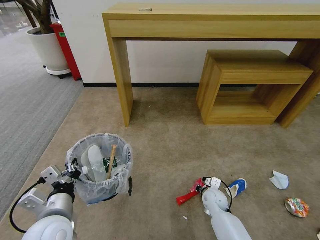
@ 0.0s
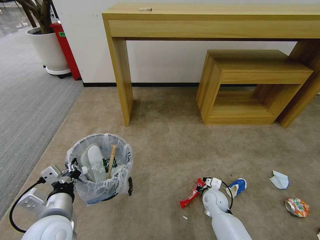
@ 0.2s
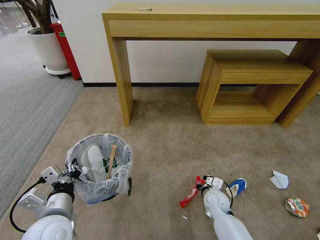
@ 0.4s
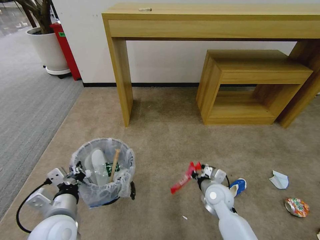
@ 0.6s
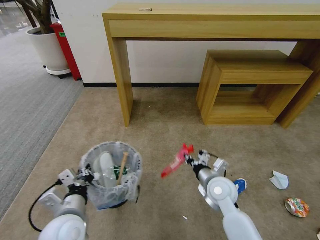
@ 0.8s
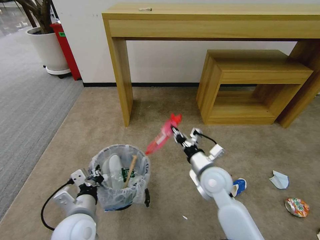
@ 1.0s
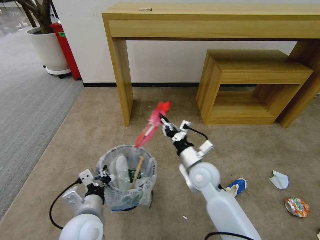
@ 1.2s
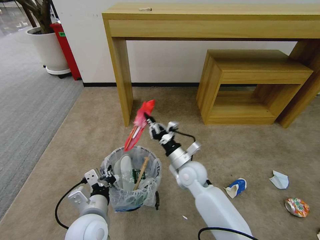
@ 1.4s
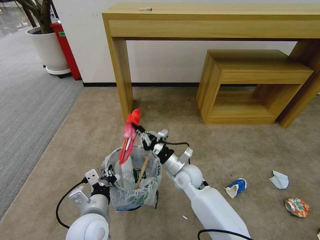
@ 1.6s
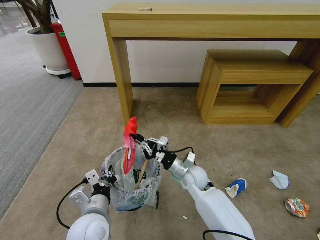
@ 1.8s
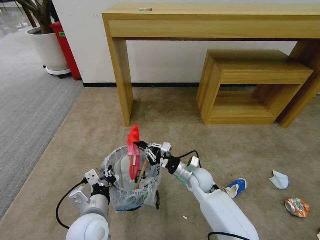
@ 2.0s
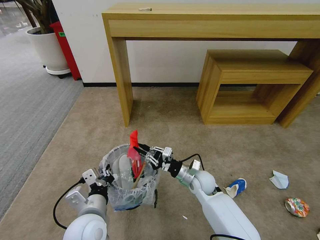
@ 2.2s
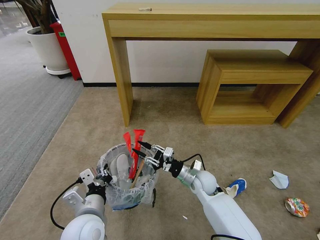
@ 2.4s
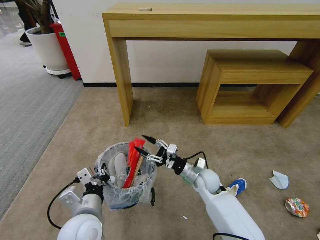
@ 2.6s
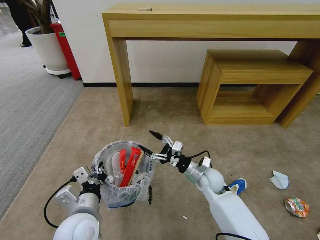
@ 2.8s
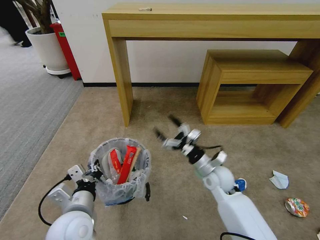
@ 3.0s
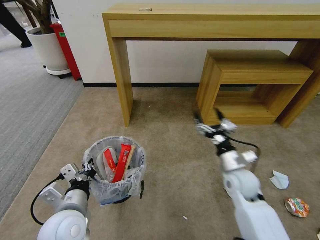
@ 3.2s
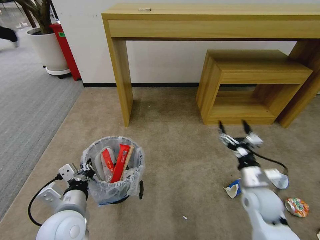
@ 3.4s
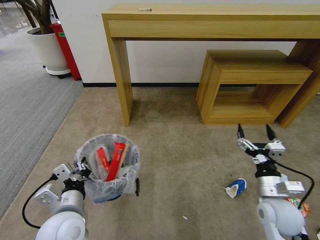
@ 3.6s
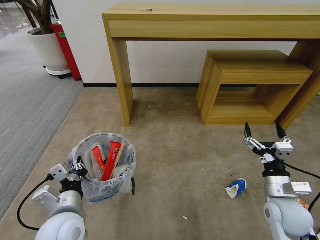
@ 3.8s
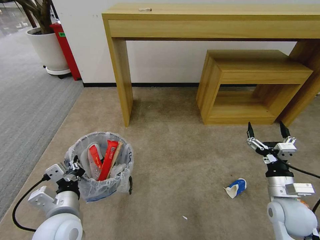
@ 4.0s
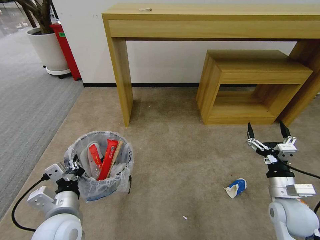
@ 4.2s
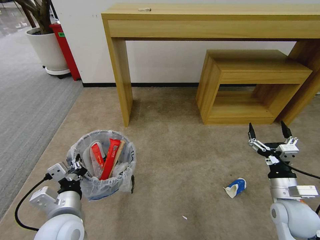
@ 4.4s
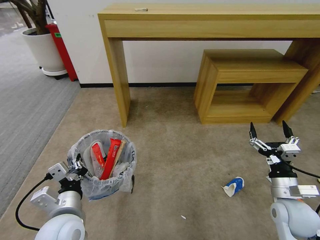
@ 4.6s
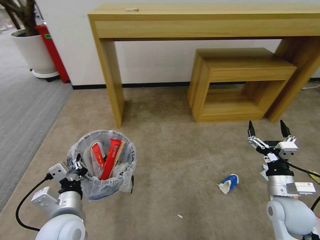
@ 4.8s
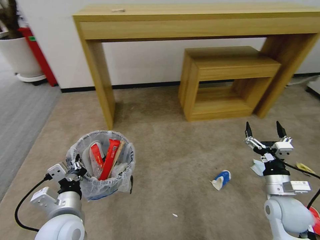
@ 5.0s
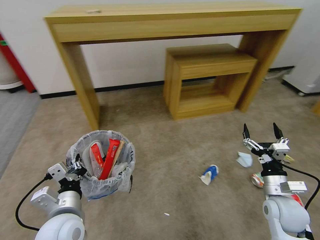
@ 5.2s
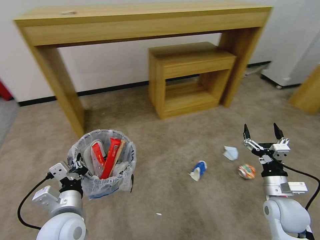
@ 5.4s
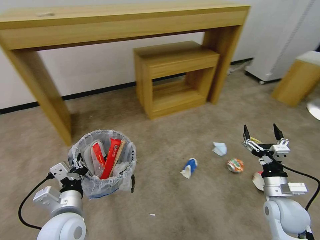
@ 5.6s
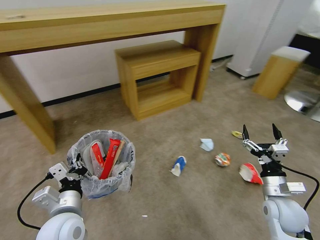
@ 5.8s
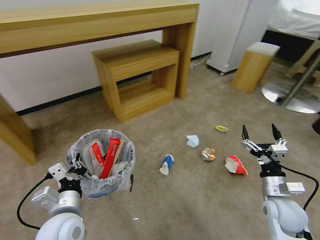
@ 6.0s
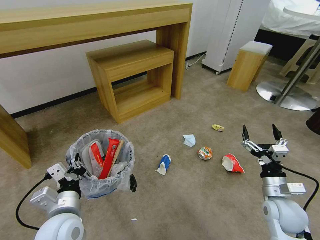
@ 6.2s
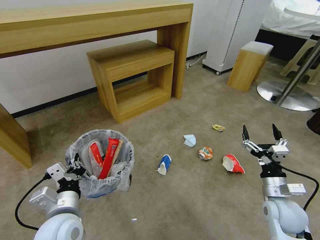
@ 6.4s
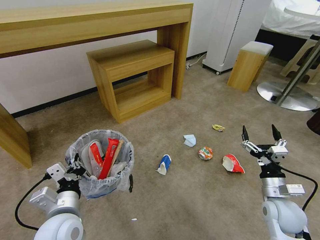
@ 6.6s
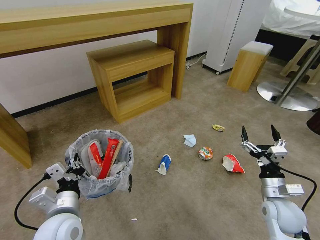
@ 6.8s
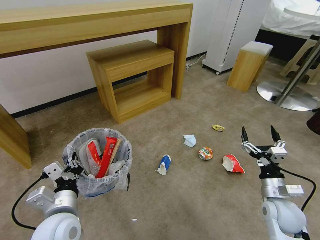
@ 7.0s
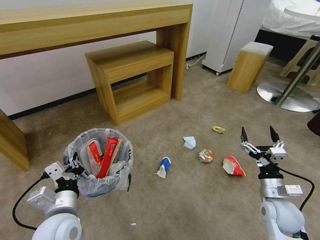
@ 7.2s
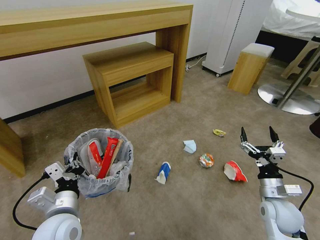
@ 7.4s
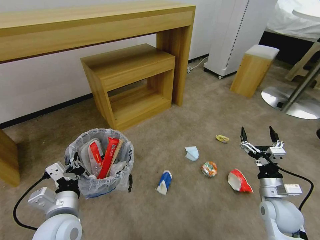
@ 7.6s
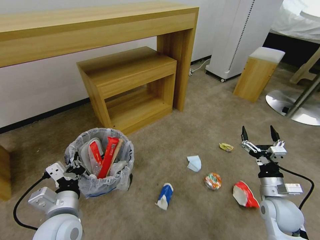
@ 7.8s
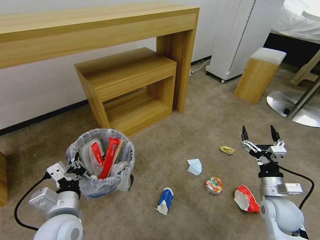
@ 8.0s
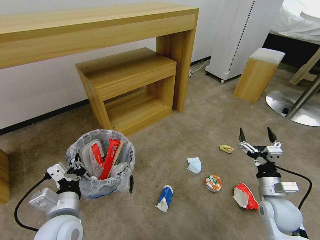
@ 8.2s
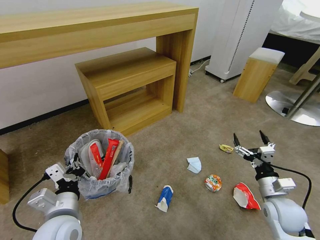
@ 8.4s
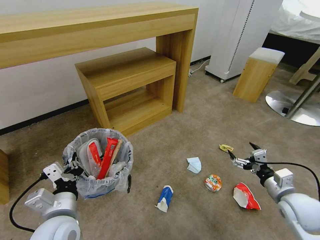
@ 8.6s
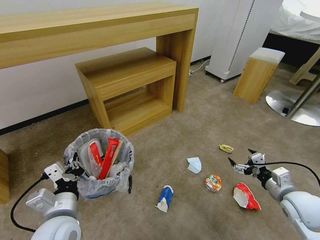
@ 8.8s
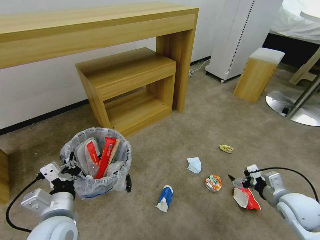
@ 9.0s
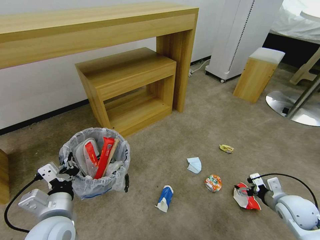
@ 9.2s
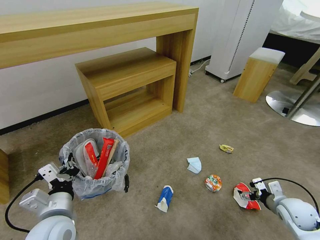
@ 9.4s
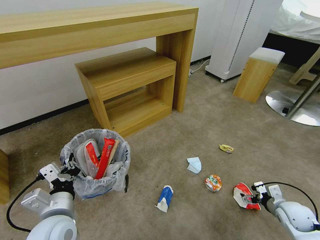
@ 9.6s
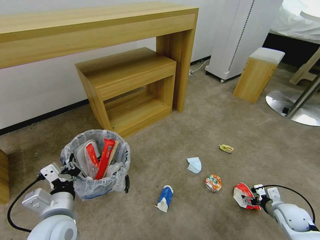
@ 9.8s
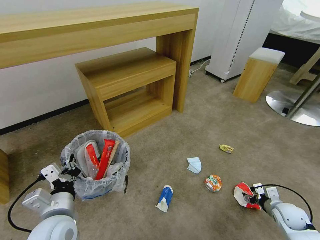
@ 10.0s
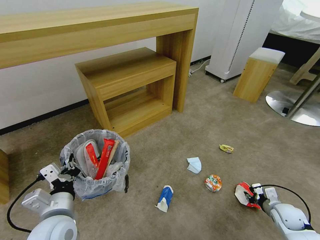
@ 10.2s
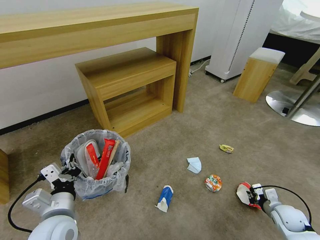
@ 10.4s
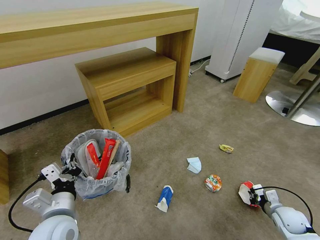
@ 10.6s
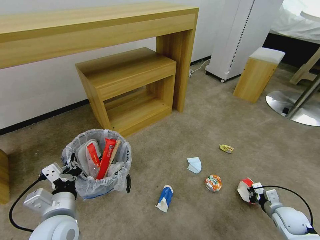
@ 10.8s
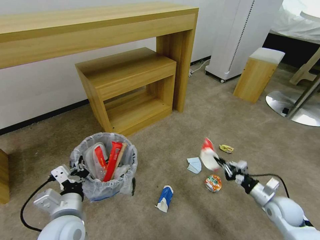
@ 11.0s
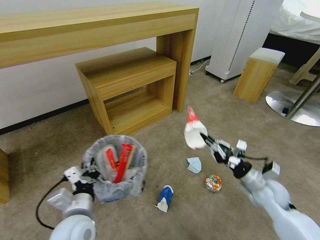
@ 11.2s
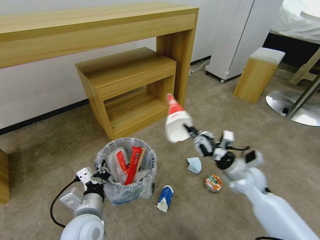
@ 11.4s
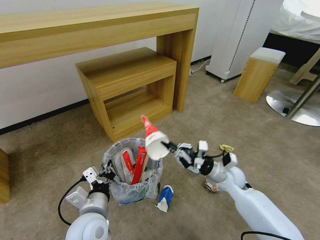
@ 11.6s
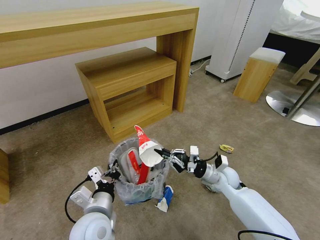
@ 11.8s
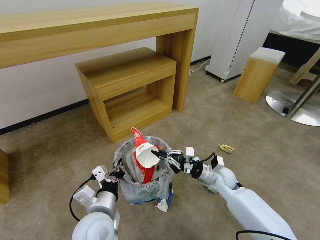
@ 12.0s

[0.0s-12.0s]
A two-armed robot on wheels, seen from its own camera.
Task of the whole recording: Pick up the trash bin and place the garbage on the floor into it.
0.0s to 1.6s: The left gripper shifts roughly 5 cm to the right, while the right gripper goes roughly 20 cm upward and to the left.
1.6s to 3.0s: The right gripper is displaced to the right by some 10 cm, and opens its fingers.
3.0s to 4.4s: The right gripper goes some 20 cm to the right and backward.
7.6s to 9.0s: The right gripper changes place by some 5 cm.
9.0s to 10.4s: The right gripper travels downward and to the right by some 15 cm, and closes.
10.4s to 12.0s: The left gripper goes approximately 10 cm to the right. The right gripper moves to the left and forward, approximately 25 cm.

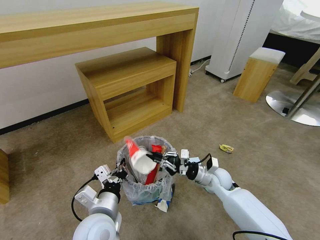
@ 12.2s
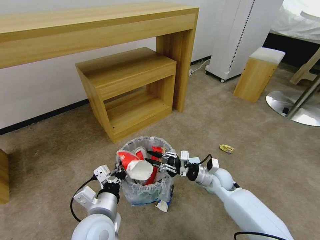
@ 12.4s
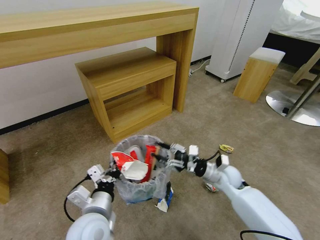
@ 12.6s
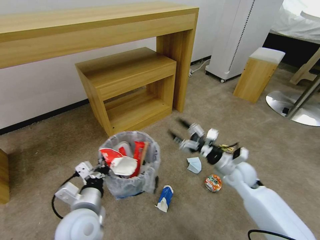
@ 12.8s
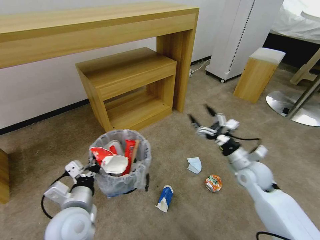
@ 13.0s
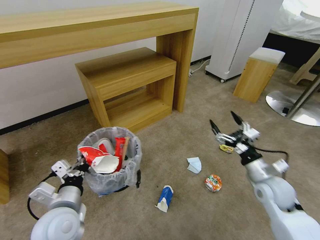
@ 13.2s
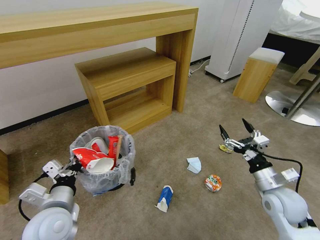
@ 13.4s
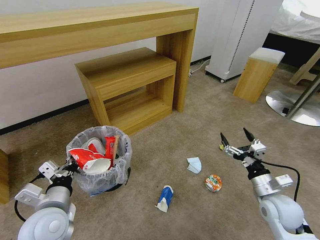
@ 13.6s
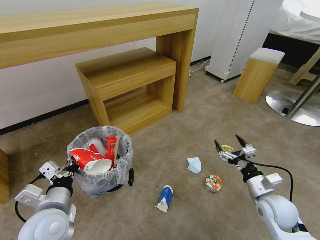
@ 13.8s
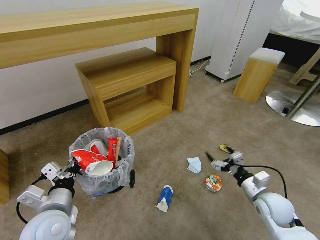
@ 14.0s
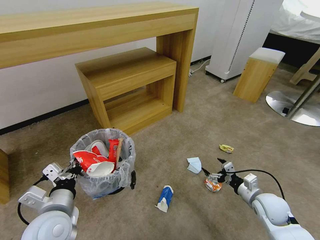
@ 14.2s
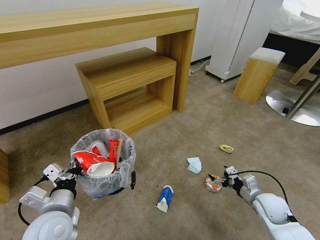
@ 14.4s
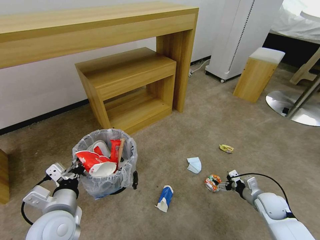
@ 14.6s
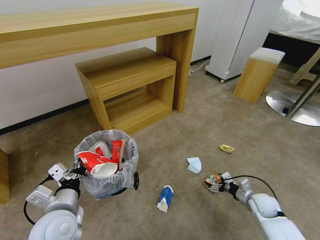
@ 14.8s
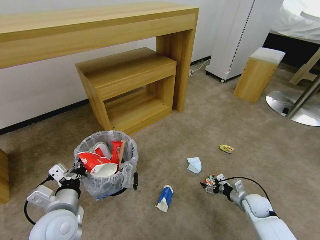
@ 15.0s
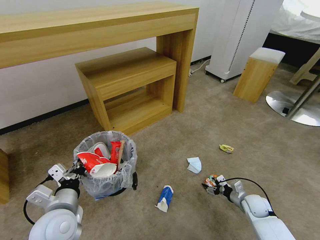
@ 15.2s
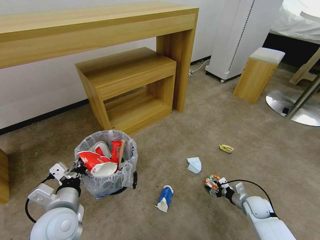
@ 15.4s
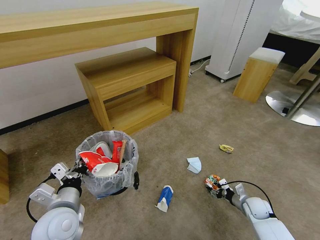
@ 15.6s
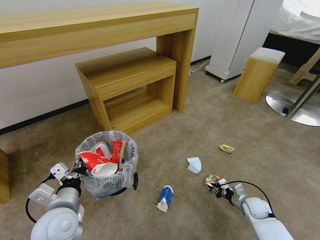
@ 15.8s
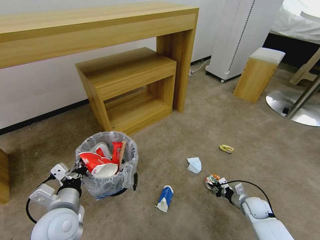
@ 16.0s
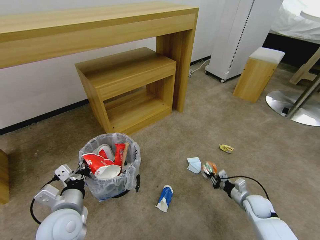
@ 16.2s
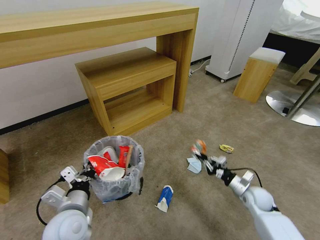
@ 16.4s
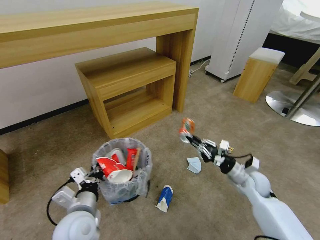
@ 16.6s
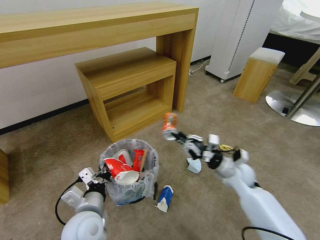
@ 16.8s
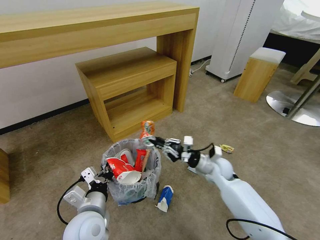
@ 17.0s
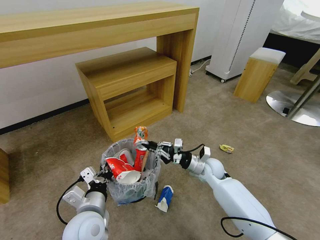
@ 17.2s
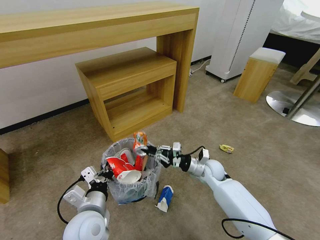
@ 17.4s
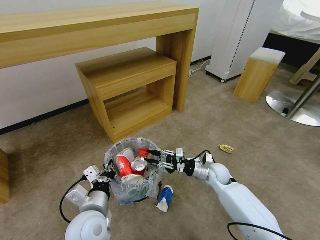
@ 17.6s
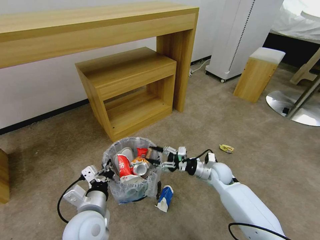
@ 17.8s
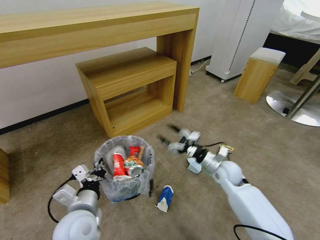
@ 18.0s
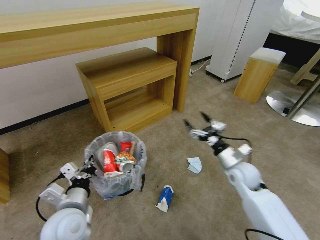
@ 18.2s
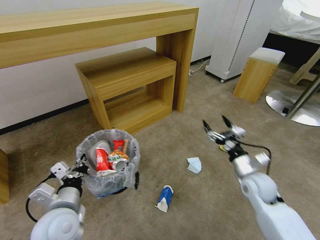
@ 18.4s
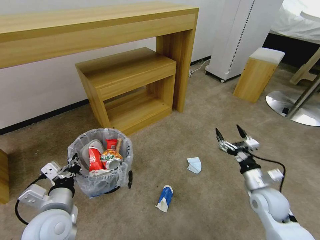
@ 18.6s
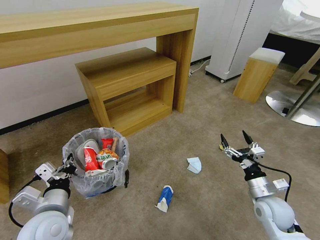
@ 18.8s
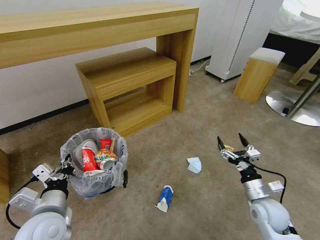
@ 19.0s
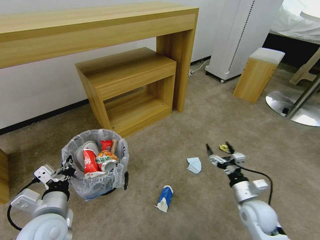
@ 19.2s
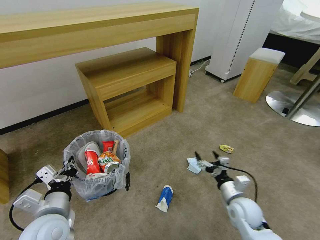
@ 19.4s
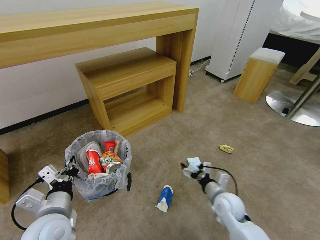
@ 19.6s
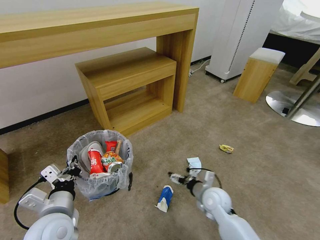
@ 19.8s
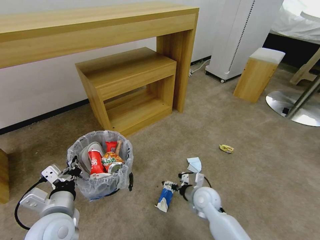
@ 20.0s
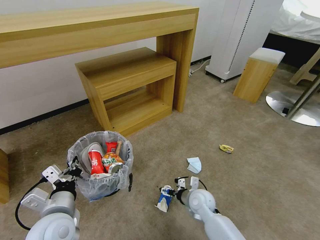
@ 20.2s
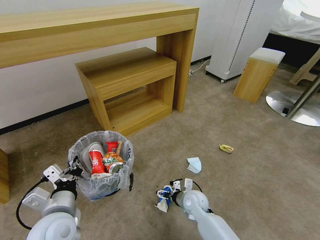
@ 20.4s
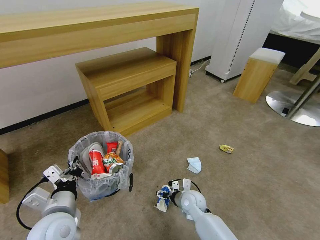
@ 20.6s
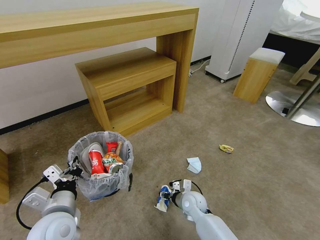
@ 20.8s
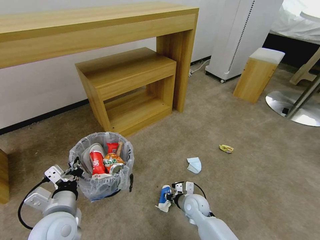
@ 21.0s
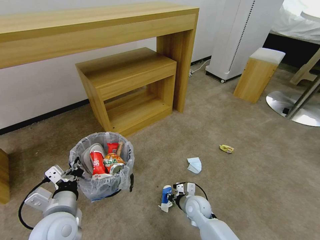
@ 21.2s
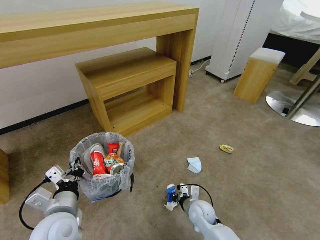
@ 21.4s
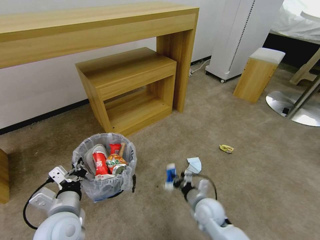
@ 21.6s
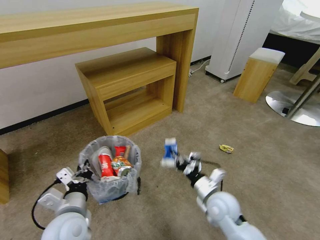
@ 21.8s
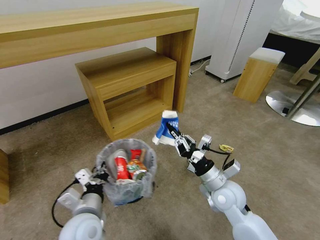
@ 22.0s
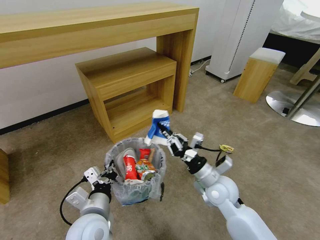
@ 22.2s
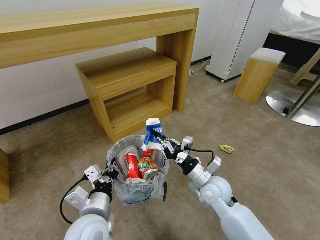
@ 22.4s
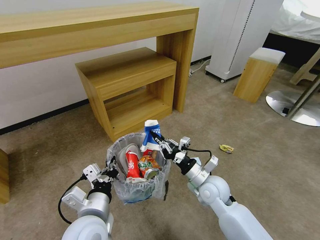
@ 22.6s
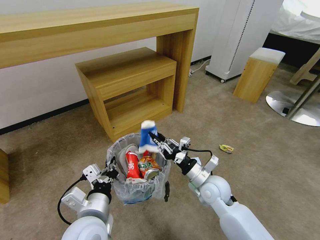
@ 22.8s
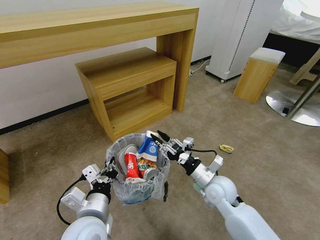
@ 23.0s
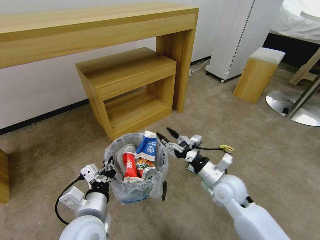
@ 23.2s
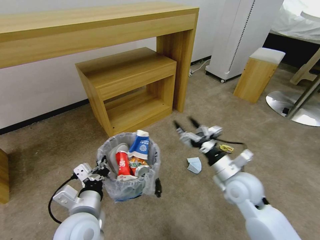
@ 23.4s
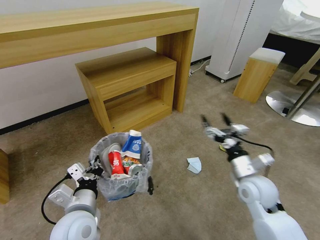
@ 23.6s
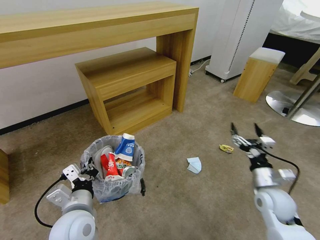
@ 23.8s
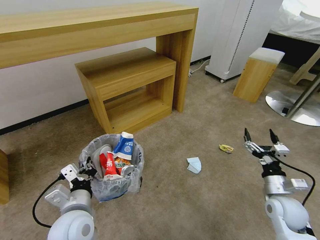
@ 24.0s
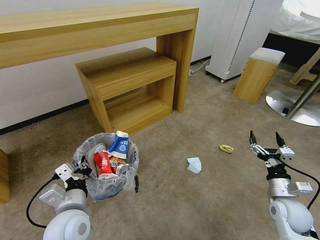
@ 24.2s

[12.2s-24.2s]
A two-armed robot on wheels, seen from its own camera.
Task of the whole recording: Pick up the trash bin and place the garbage on the floor into it.
12.2s to 13.8s: The right gripper goes approximately 20 cm to the right and backward, and opens up. Meanwhile the left gripper heads to the left, covering about 10 cm.
13.8s to 15.2s: The right gripper heads downward, covering approximately 15 cm.
15.2s to 16.6s: The right gripper goes about 15 cm upward, and closes.
16.6s to 18.2s: The right gripper goes some 5 cm to the left, and opens up.
18.2s to 19.8s: The right gripper goes approximately 15 cm to the left, downward and backward.
19.8s to 21.2s: The right gripper heads downward and to the left, covering some 10 cm, and closes.
21.2s to 22.6s: The left gripper goes some 10 cm to the right; the right gripper goes some 15 cm upward.
22.6s to 24.2s: The right gripper shifts roughly 25 cm to the right, and opens up; the left gripper heads to the left, covering approximately 5 cm.
